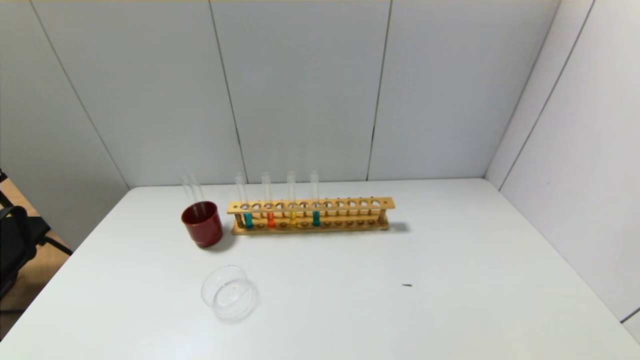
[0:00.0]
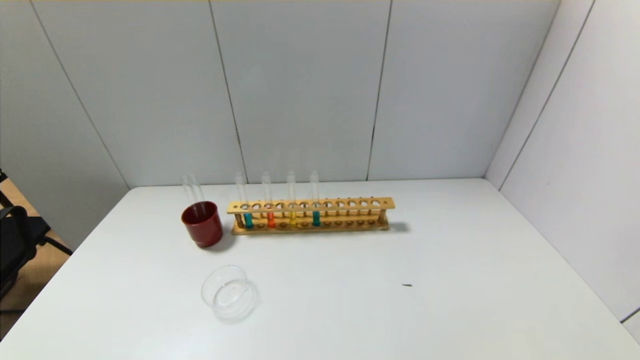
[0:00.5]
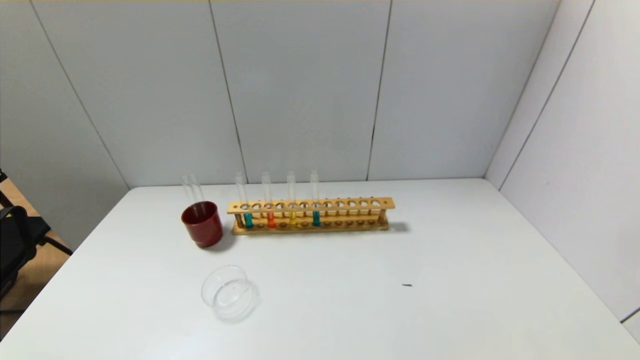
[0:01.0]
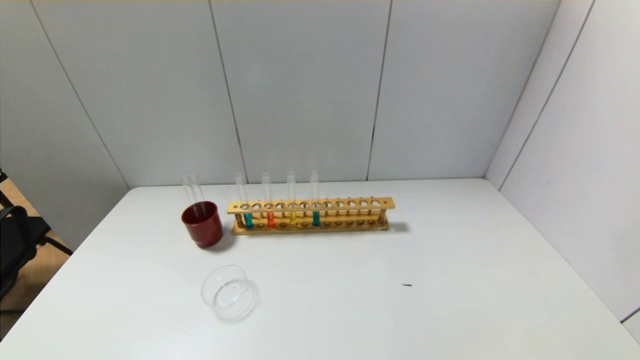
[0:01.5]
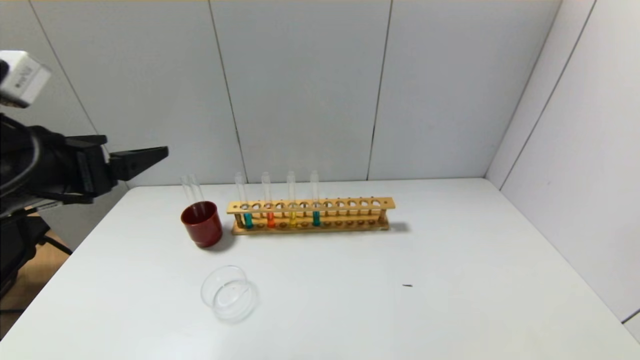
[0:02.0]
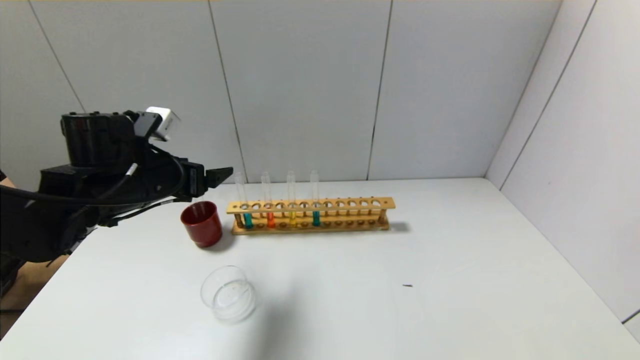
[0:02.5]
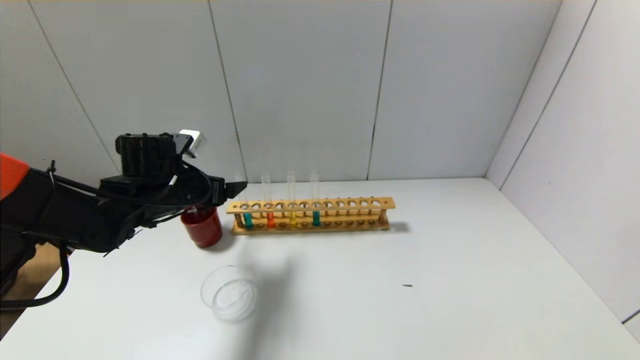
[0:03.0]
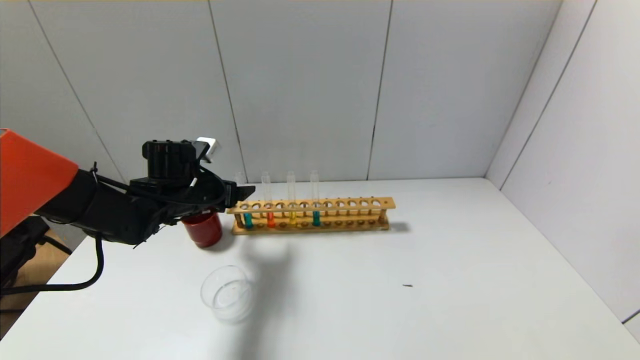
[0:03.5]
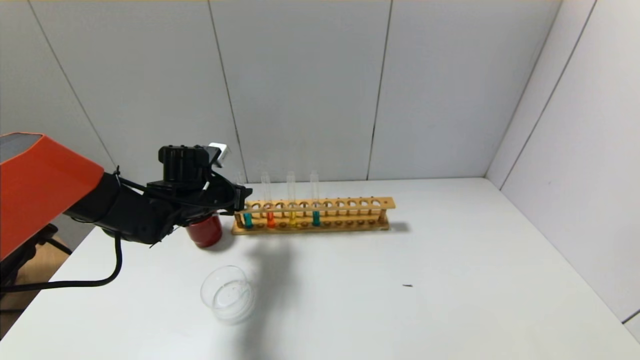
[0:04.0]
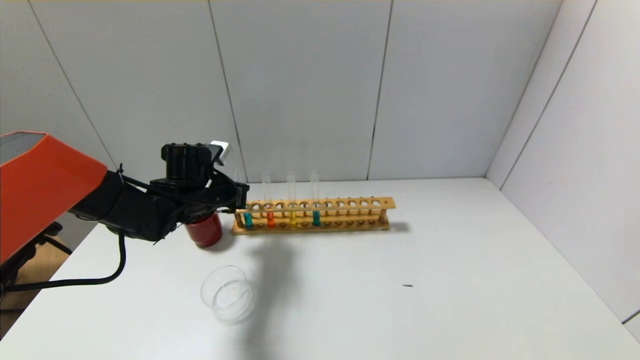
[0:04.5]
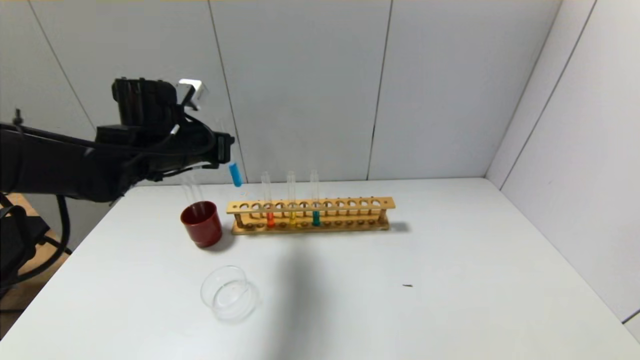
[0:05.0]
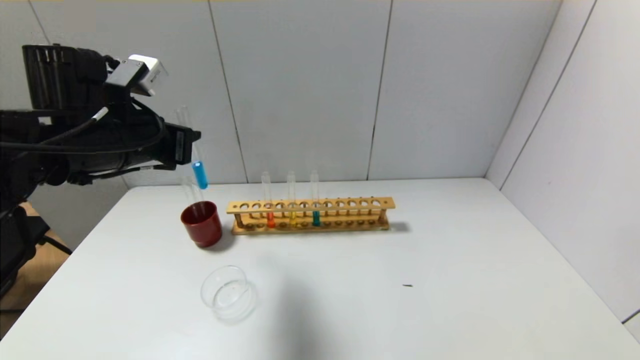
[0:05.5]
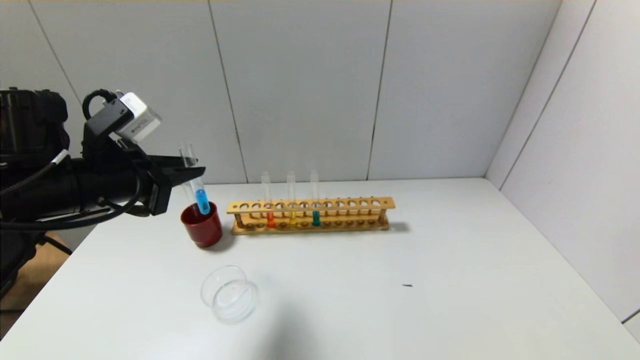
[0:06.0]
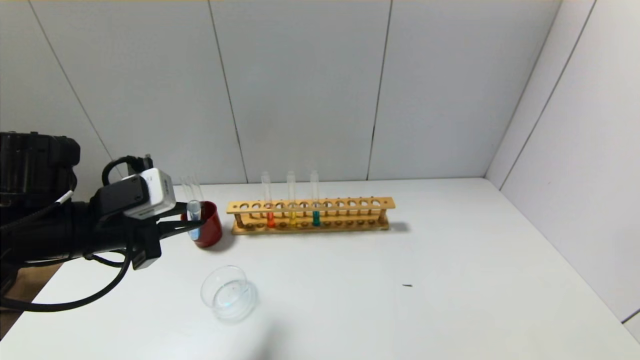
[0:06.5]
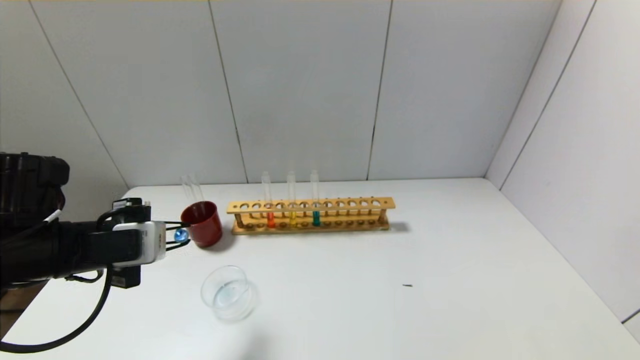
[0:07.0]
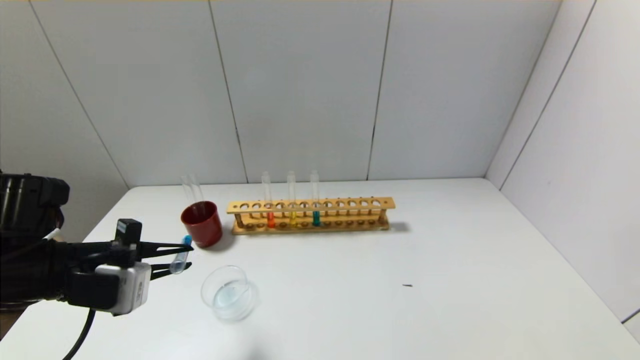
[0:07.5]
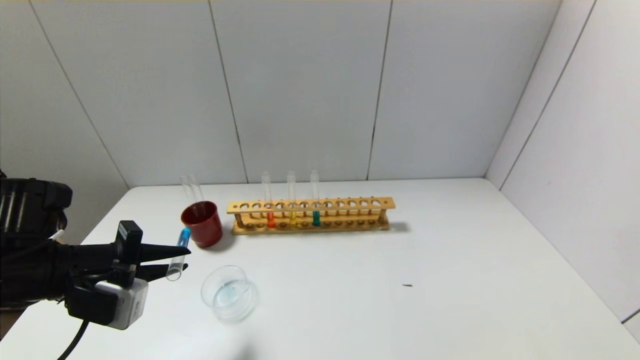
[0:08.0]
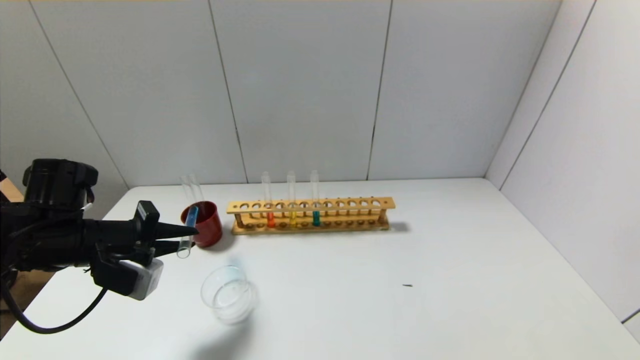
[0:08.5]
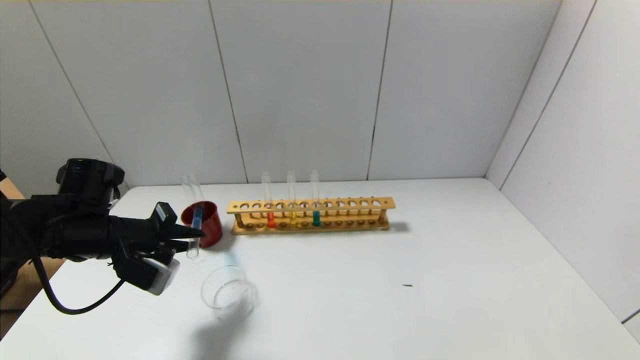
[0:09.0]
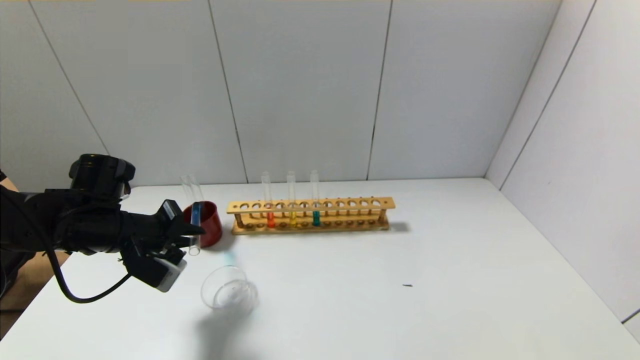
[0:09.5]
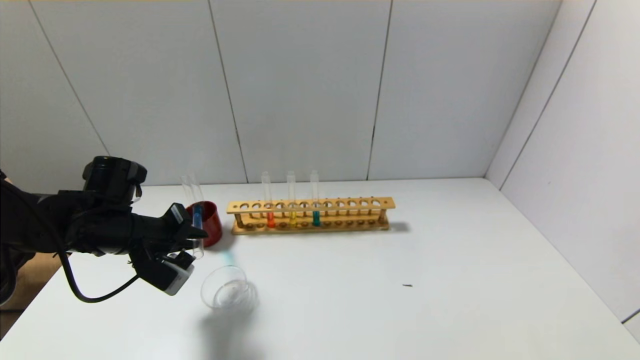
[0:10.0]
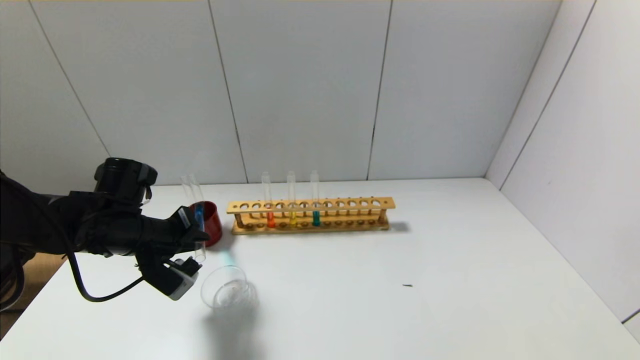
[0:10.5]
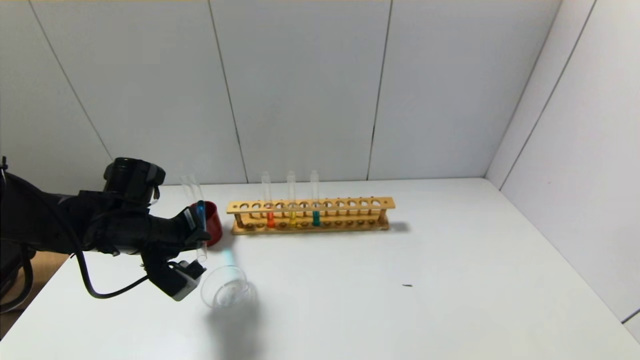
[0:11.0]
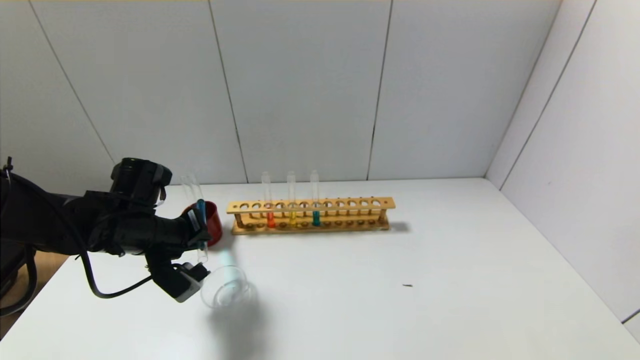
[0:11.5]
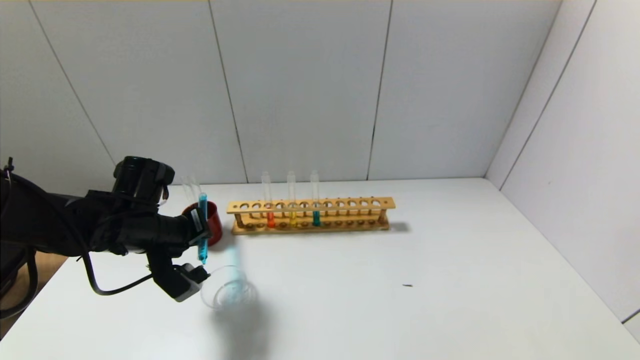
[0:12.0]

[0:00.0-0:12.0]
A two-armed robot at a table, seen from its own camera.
Step, 0:00.0 to 0:04.0: Grasp the blue reagent with the left gripper.
0:00.0 to 0:02.0: The left gripper goes about 30 cm forward and upward.
0:02.0 to 0:04.0: The left gripper is displaced forward and downward by some 25 cm, and closes.
0:04.0 to 0:06.0: The left gripper moves backward and upward, about 20 cm.
0:06.0 to 0:08.0: The left gripper moves downward, some 10 cm.
0:08.0 to 0:10.0: The left gripper moves forward, about 10 cm.

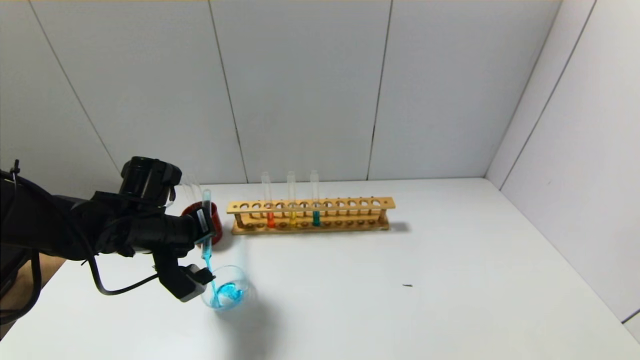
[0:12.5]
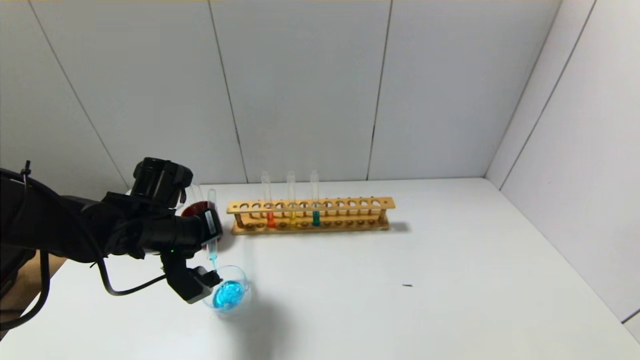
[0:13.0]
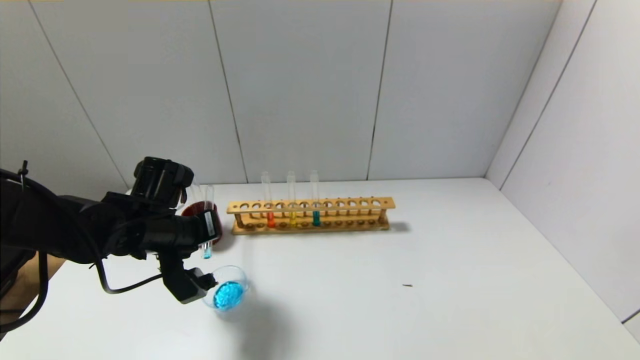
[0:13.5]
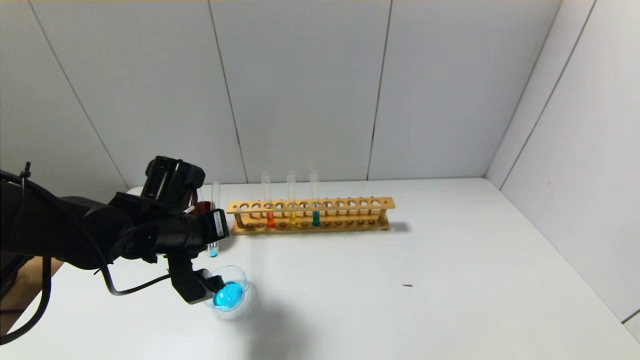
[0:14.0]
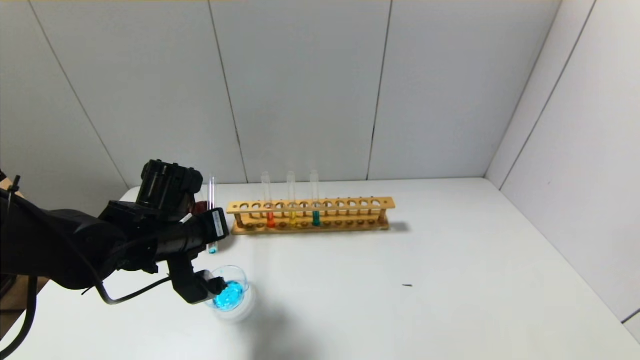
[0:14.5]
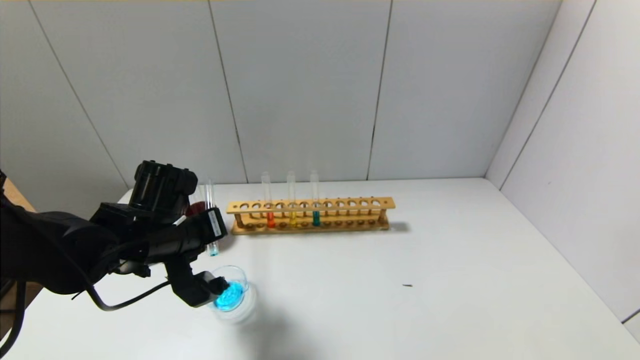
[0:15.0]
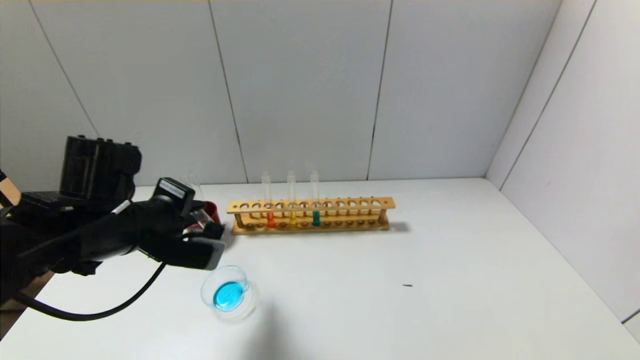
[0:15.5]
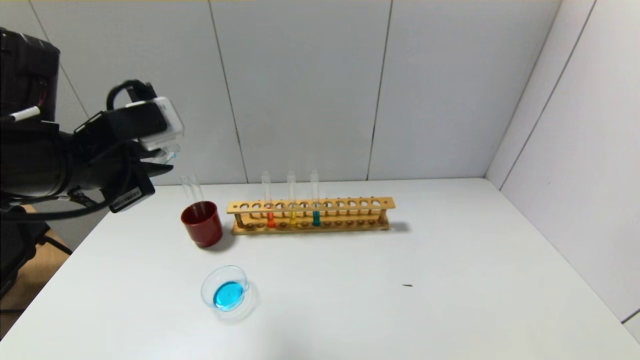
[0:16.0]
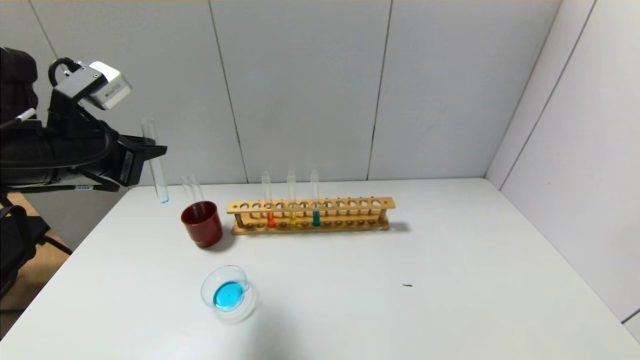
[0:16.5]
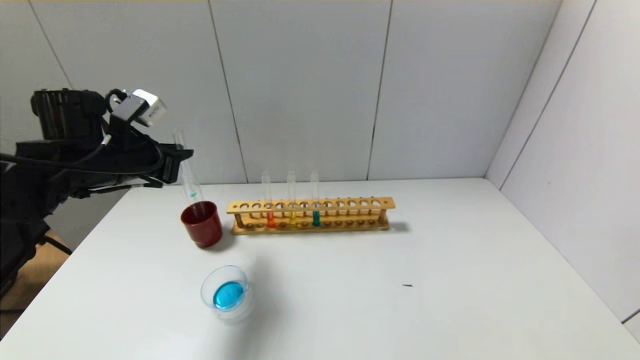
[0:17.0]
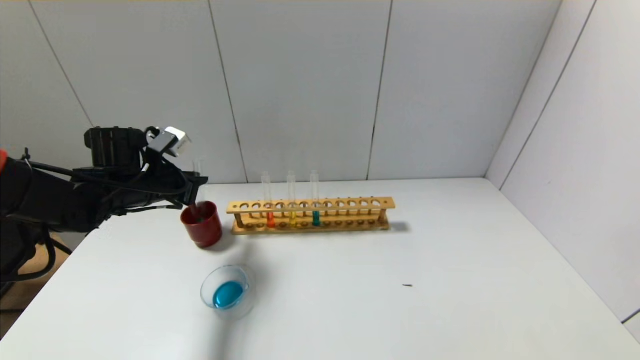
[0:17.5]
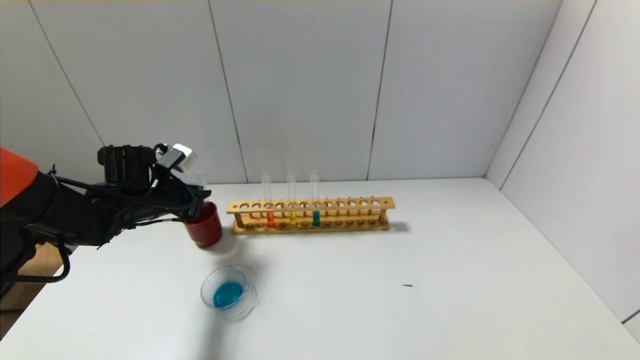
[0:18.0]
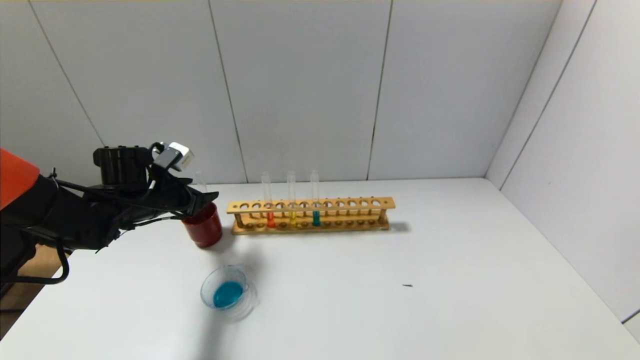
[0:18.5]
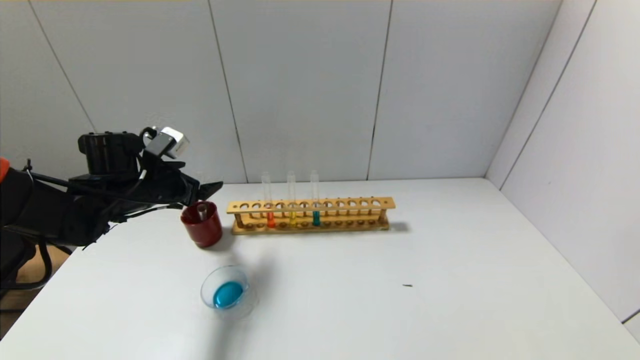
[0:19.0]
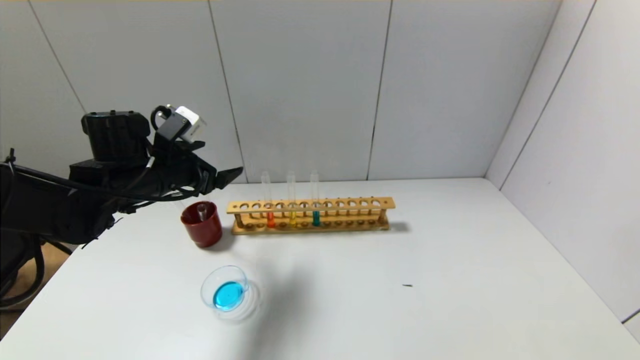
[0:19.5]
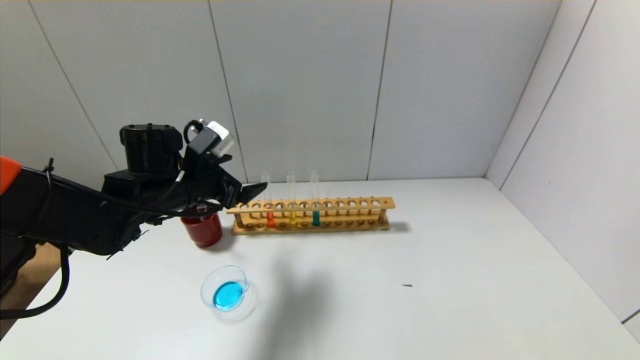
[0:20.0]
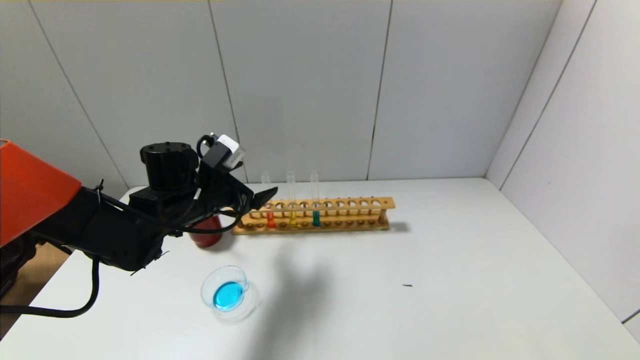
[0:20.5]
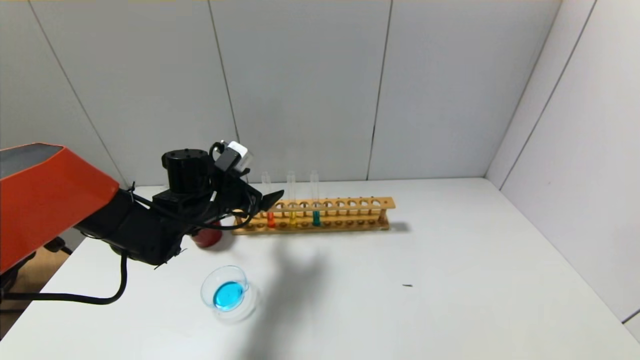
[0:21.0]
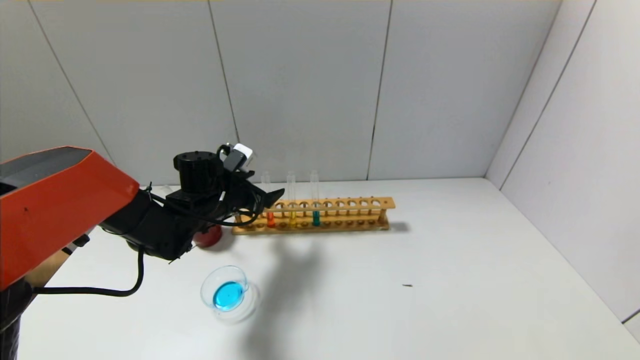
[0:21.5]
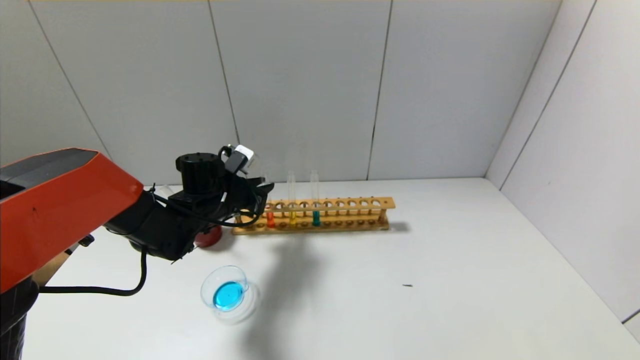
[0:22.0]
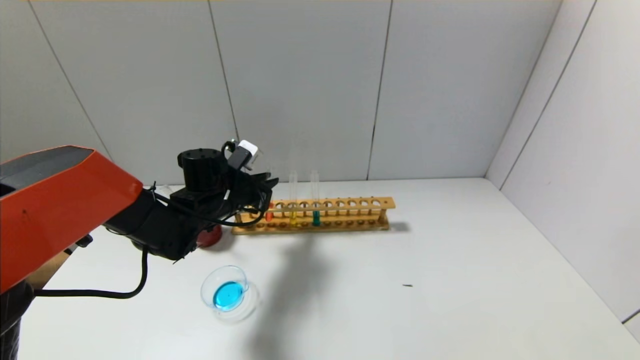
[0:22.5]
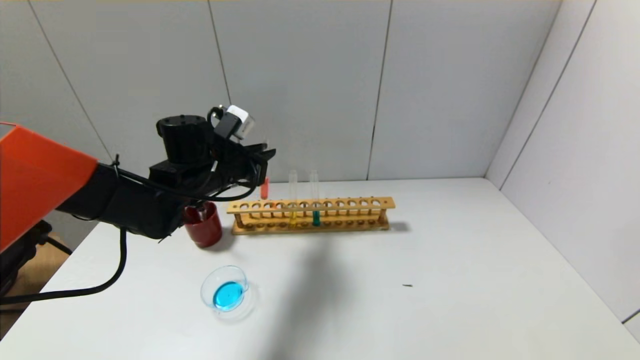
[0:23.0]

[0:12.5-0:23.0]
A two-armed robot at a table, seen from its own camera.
Step, 0:12.5 to 0:15.0: Pour the blue reagent into the graduated cylinder with the left gripper.
Step, 0:15.5 to 0:18.0: Place the test tube into the brown cup with the left gripper.
Step, 0:18.5 to 0:22.0: Grasp the red reagent with the left gripper.
0:12.5 to 0:14.5: The grippers move only a little.
0:14.5 to 0:16.5: The left gripper heads upward and to the left, covering approximately 15 cm.
0:16.5 to 0:19.0: The left gripper is displaced downward and forward by about 15 cm, and opens its fingers.
0:19.0 to 0:21.0: The left gripper goes about 10 cm to the right.
0:21.0 to 0:23.0: The left gripper goes roughly 5 cm upward, and closes.
